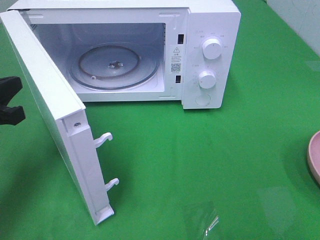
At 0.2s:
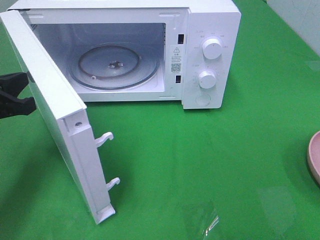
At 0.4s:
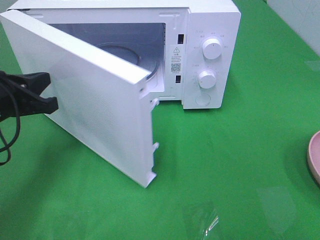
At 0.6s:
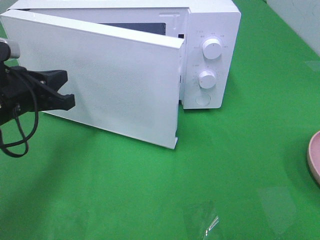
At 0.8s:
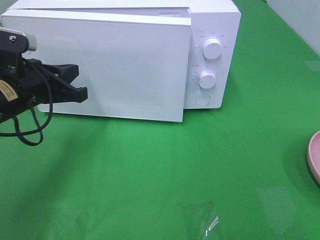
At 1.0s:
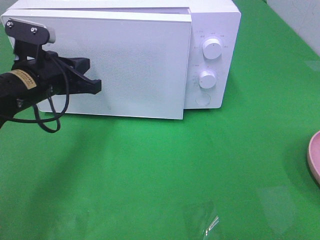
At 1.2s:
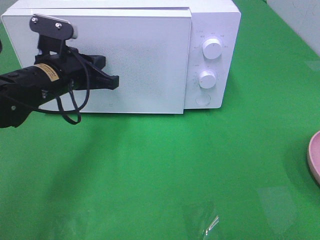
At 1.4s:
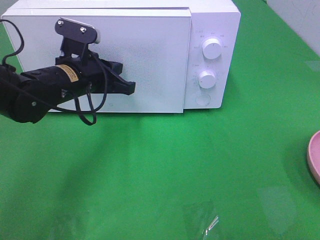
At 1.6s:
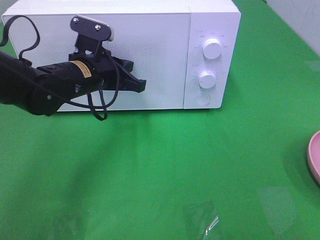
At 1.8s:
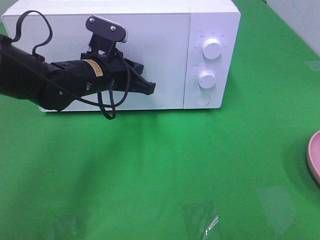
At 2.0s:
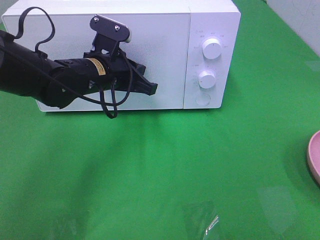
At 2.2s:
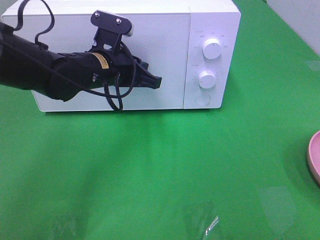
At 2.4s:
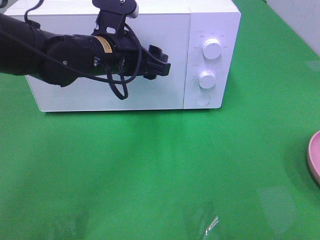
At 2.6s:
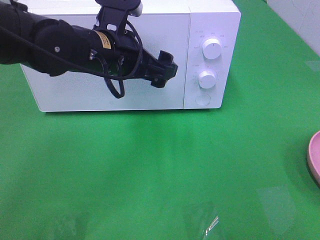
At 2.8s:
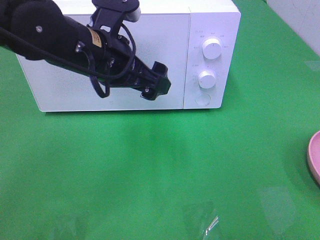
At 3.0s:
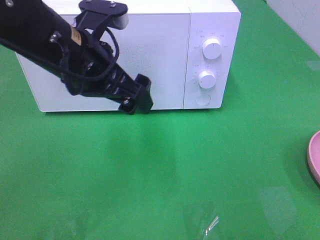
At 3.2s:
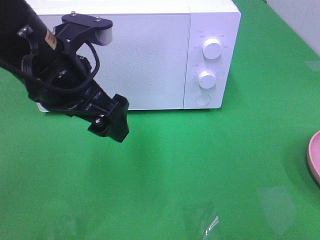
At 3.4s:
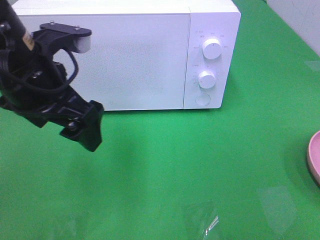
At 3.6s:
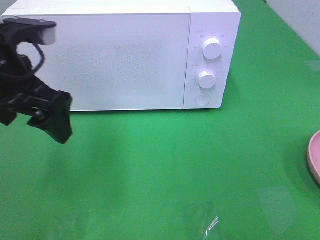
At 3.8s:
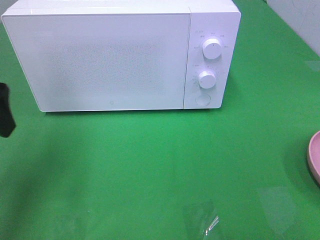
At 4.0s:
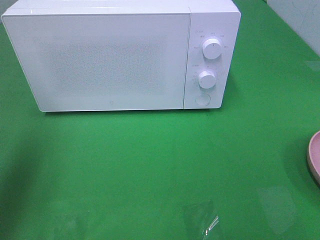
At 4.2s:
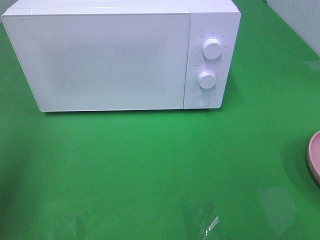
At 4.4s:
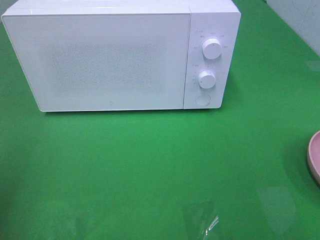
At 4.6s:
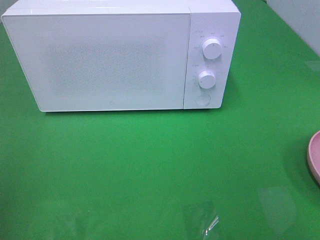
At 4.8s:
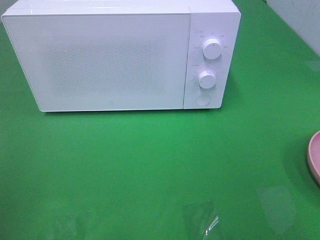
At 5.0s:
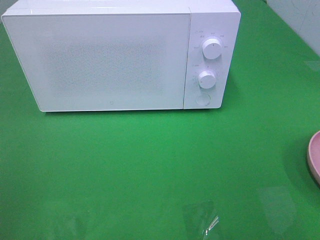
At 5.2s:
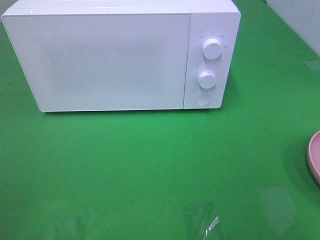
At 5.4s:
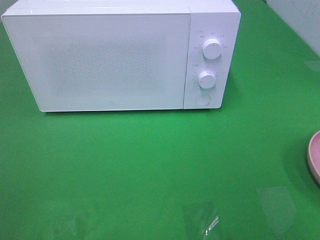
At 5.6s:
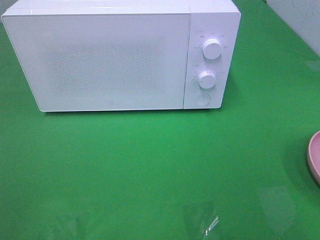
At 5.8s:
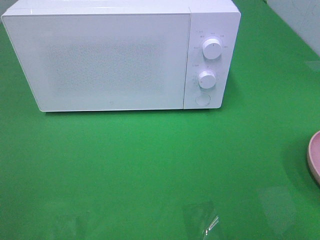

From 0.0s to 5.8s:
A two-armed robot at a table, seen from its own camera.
Task of the whole recording: Heat the burger.
Step, from 0.0s to 2.2s: Left hand: close the microwave door.
From 0.0s to 1.4s: The left gripper moves to the right and forward, some 20 cm.
From 1.4s to 2.8s: The left gripper heads upward, covering some 5 cm, and opens up.
From 2.8s to 4.4s: The left gripper heads to the left and backward, covering about 30 cm.

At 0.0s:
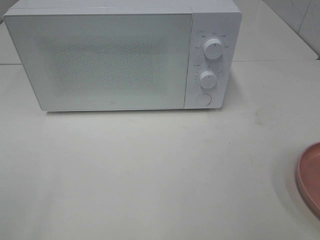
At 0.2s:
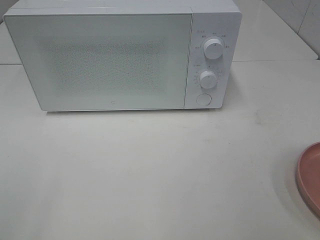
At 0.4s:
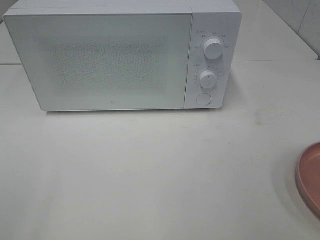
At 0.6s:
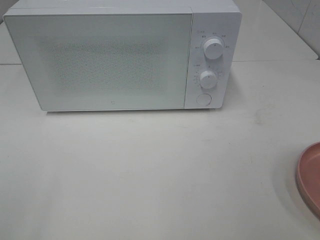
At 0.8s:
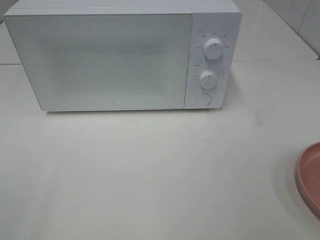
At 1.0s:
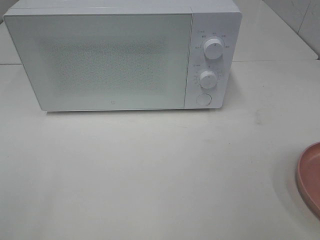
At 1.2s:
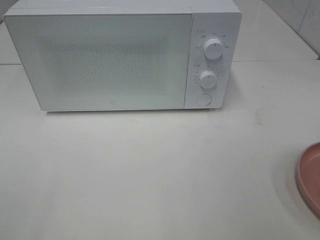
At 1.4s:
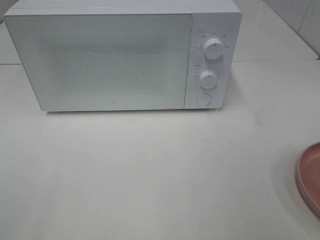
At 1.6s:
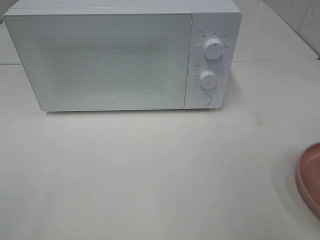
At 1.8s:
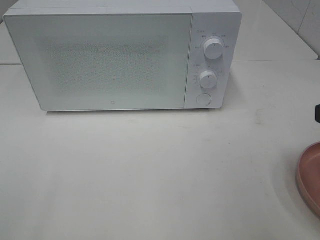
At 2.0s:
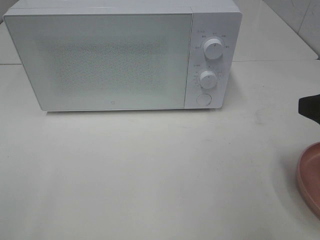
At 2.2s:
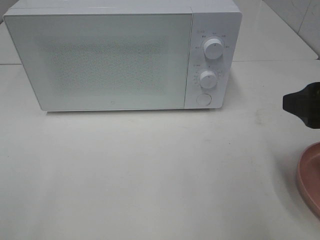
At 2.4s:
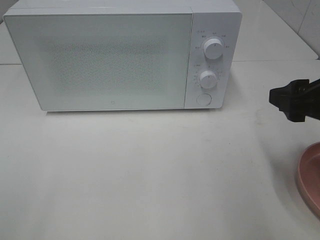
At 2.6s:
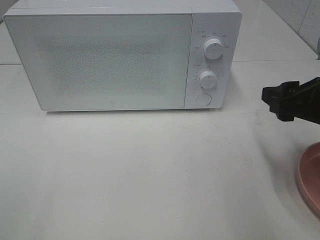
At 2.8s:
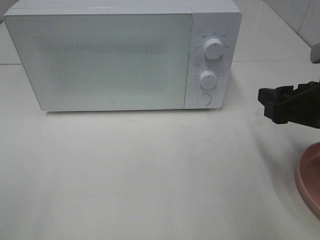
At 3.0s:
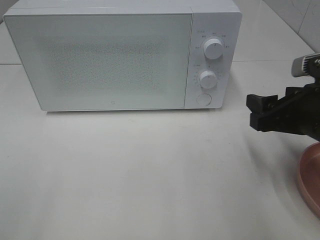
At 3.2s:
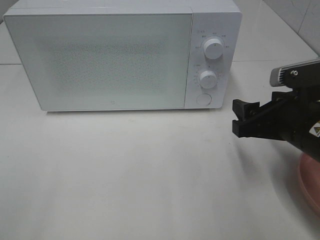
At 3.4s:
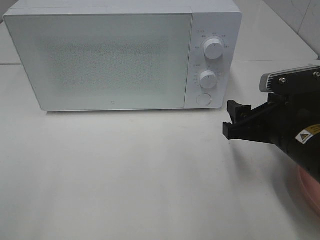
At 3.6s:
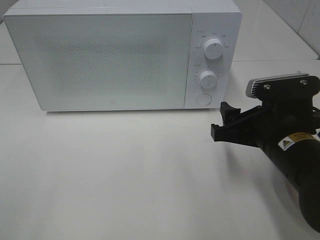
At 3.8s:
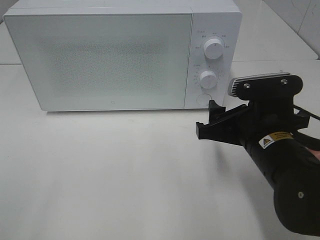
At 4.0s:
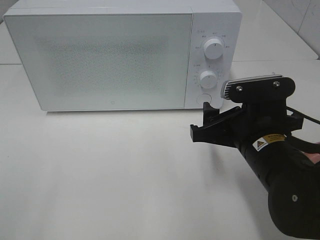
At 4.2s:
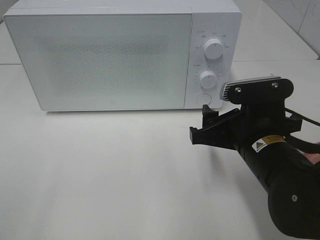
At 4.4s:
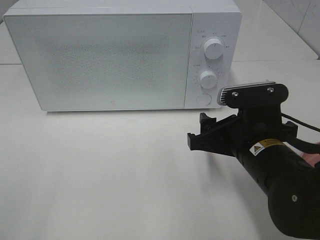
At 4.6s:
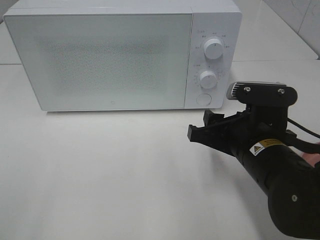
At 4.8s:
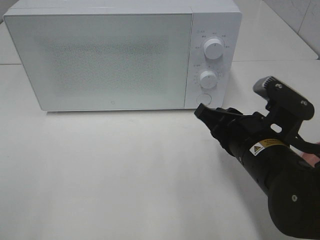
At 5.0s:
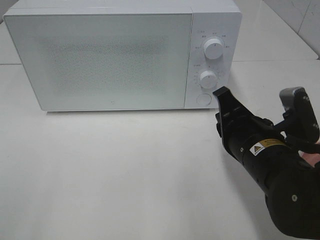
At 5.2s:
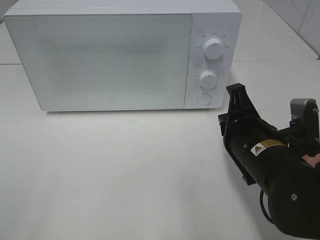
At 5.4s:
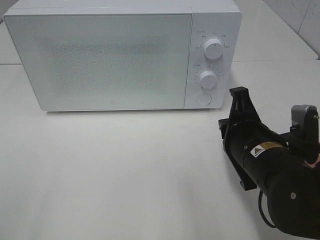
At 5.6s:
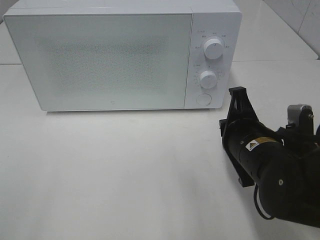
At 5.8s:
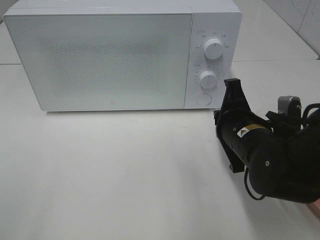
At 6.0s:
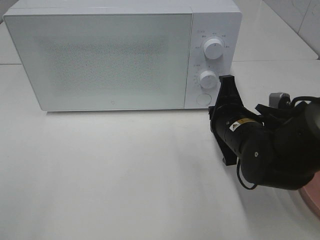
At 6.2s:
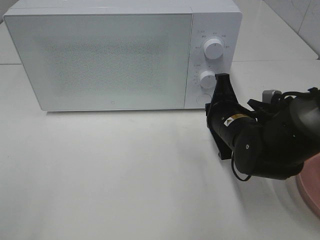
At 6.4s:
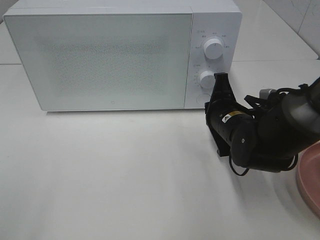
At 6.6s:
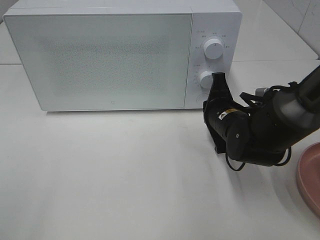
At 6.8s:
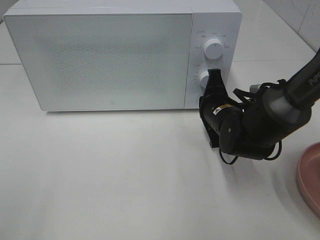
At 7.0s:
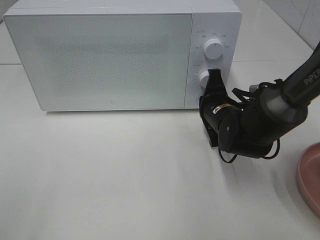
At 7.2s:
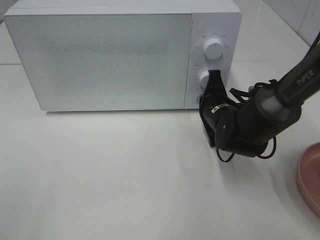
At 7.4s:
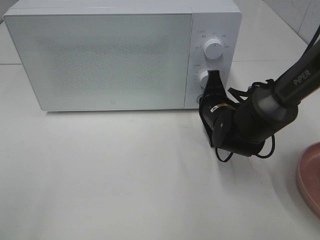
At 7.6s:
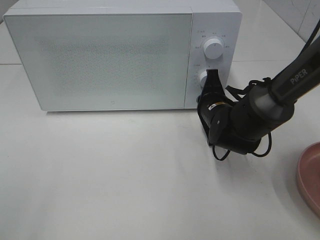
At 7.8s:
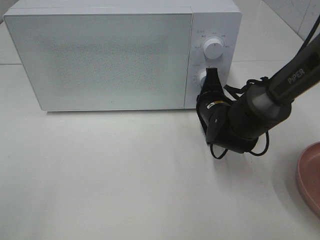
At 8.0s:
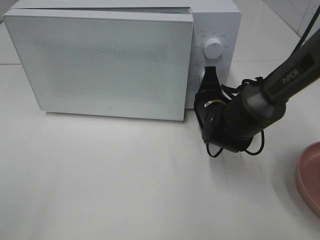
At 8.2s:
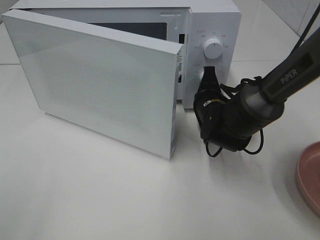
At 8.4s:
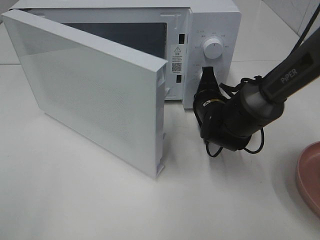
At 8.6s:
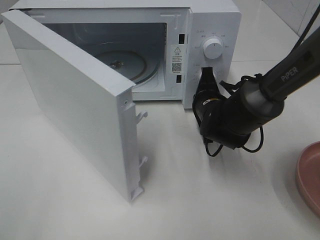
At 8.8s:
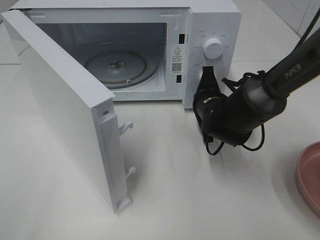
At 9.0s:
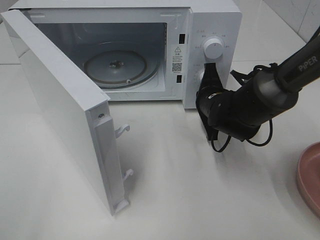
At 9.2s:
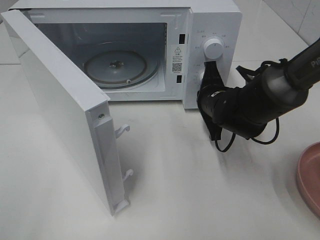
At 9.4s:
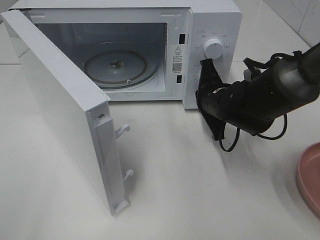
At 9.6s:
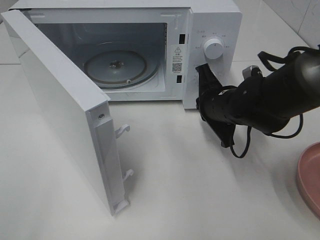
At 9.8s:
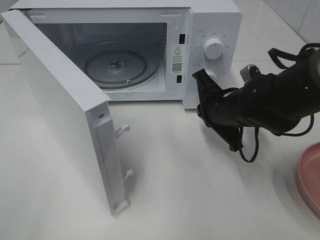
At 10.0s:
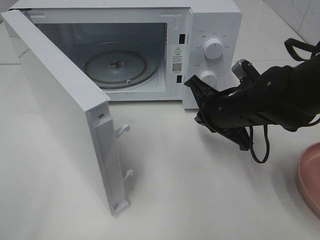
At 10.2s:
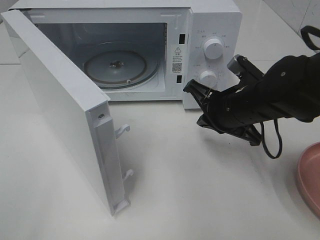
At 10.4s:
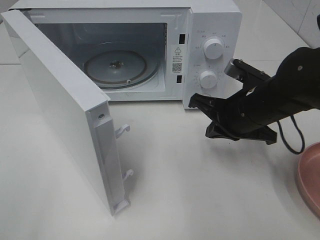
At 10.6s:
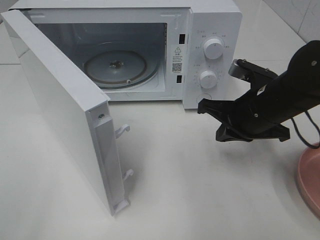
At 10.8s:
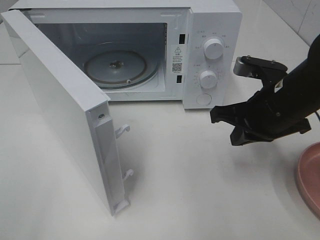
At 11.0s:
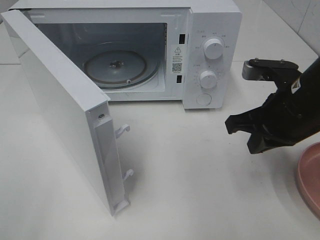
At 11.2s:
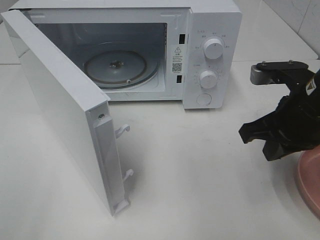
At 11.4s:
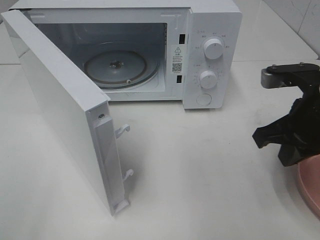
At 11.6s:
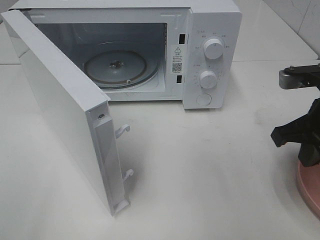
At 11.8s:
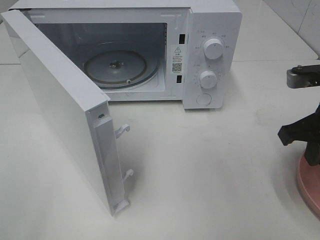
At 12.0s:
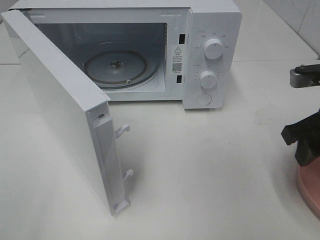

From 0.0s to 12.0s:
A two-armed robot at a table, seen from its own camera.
Task of the whole recording: Heat the burger.
Step, from 0.0s to 9.4s: Right hand: press the switch.
From 1.6s to 3.0s: The right gripper heads forward and downward, covering roughly 15 cm.
From 3.0s to 4.4s: The right gripper shifts approximately 10 cm to the left.
From 4.4s to 6.0s: The right gripper shifts roughly 5 cm forward, and closes up.
From 6.0s to 7.6s: The right gripper heads forward, covering roughly 10 cm.
From 9.0s to 10.4s: The right gripper is displaced backward and upward by about 10 cm.
From 10.4s to 12.0s: The right gripper moves to the right, upward and backward, about 10 cm, and opens up.

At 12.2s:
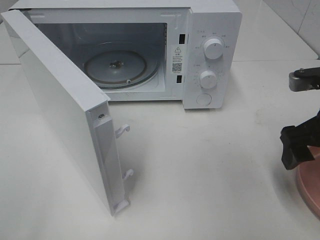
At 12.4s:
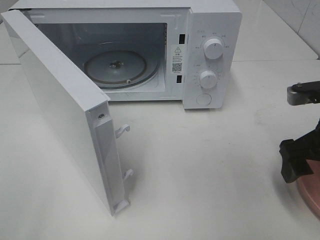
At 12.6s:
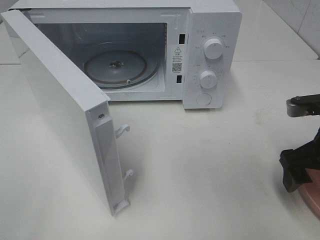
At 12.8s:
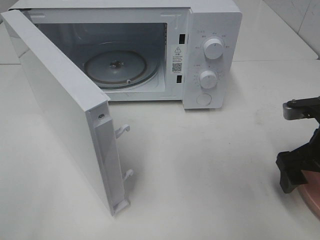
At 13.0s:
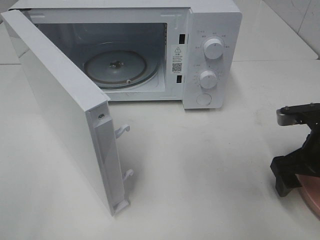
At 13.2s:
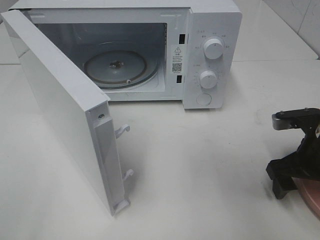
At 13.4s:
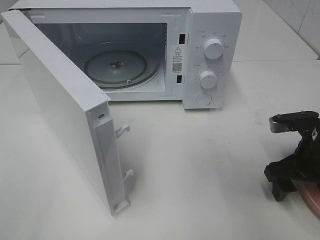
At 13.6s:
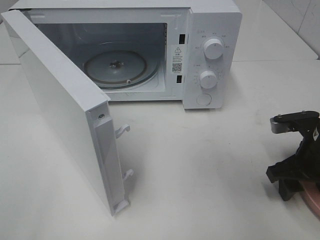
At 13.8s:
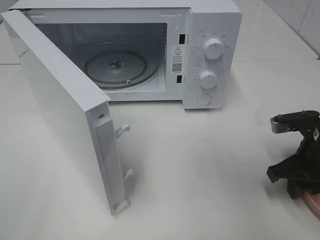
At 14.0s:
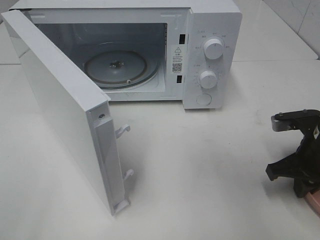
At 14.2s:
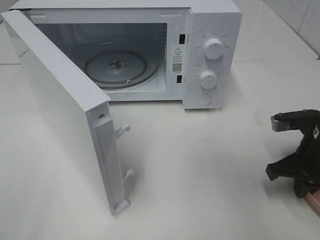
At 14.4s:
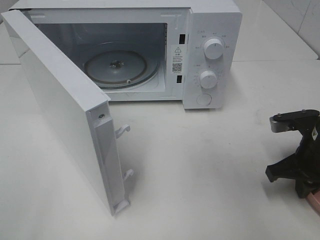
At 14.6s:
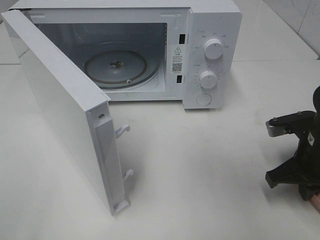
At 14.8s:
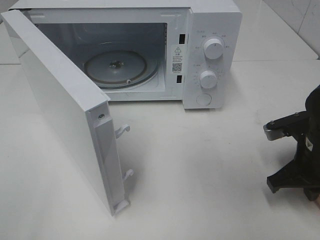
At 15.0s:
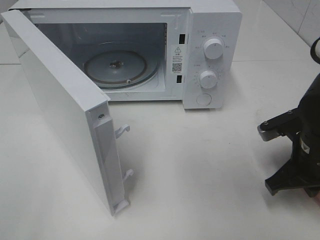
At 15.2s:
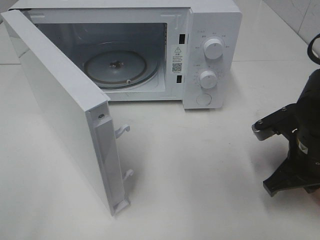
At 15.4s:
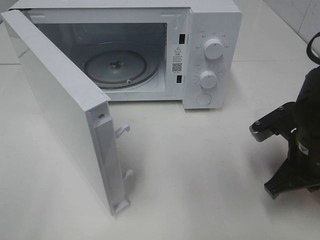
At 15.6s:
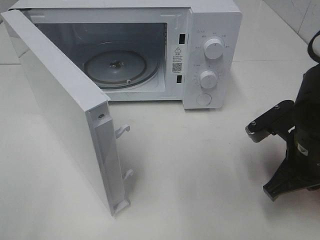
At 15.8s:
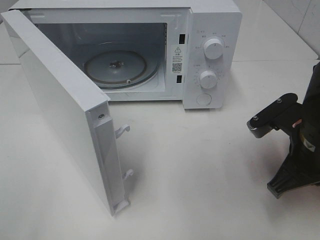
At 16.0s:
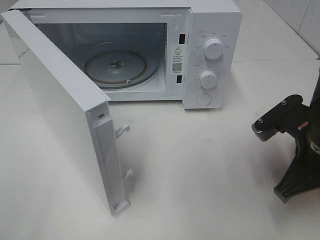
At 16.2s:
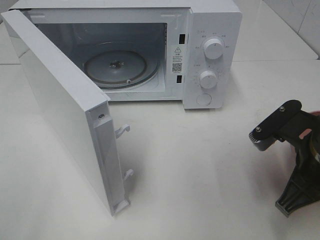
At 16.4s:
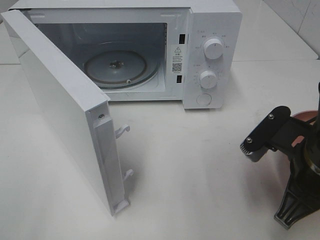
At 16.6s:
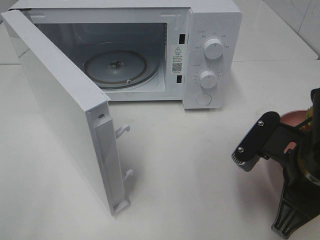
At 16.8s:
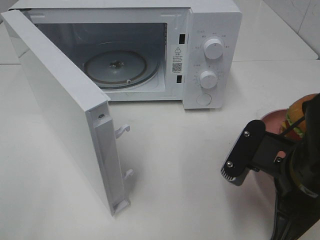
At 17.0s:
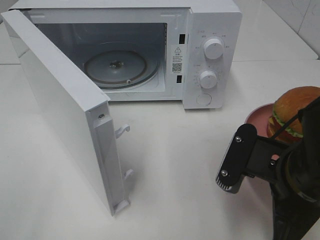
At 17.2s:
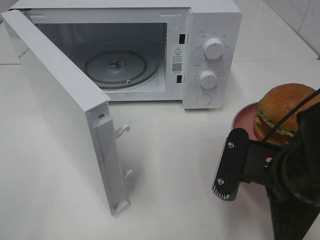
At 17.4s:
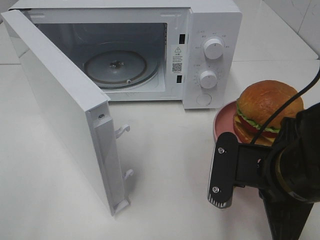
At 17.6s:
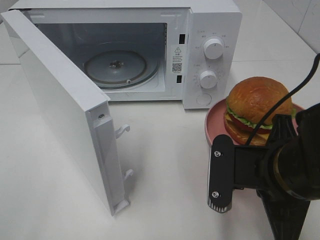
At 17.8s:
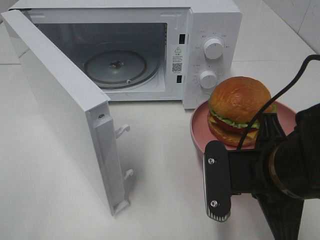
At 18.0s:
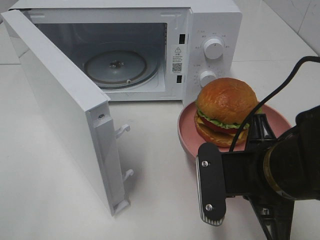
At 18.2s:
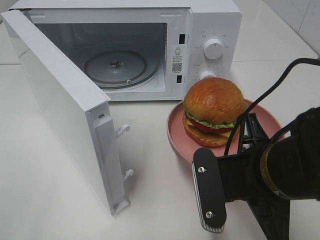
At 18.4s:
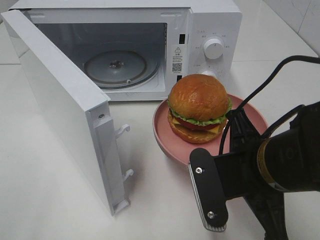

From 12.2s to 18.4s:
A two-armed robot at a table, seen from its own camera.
Task of the whole recording: Heat the burger.
Step, from 12.2s to 14.4s: Right hand: grab the plate with the hamburger.
From 12.2s to 13.8s: The right gripper moves downward, roughly 10 cm, and closes its fingers.
From 13.8s to 15.4s: The right gripper moves to the left, approximately 5 cm, and closes its fingers.
From 15.4s to 16.8s: The right gripper is displaced backward and to the left by roughly 10 cm.
